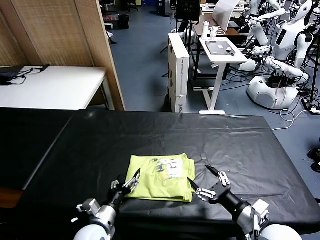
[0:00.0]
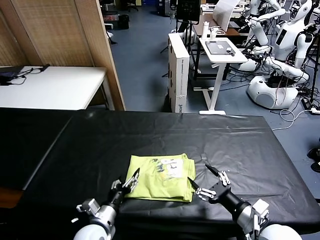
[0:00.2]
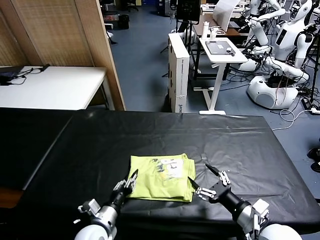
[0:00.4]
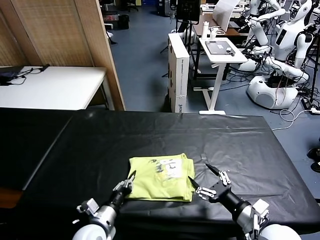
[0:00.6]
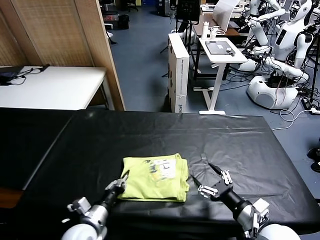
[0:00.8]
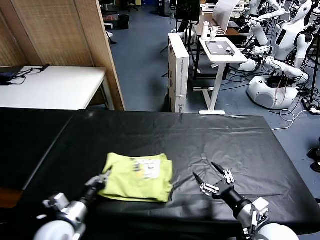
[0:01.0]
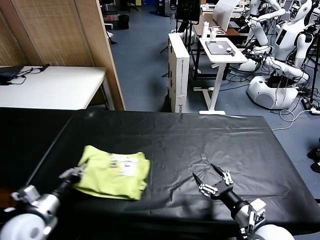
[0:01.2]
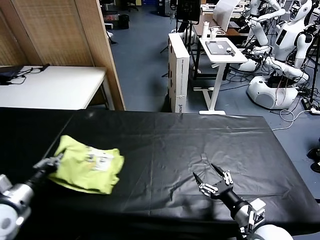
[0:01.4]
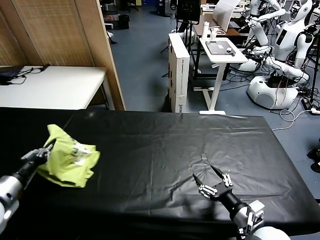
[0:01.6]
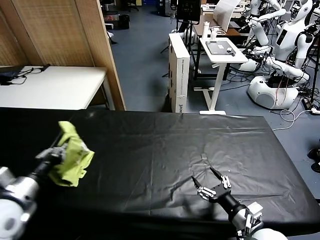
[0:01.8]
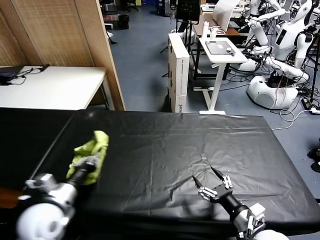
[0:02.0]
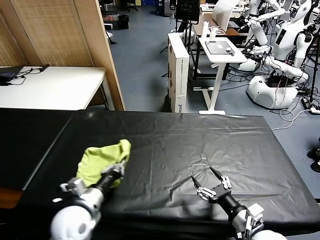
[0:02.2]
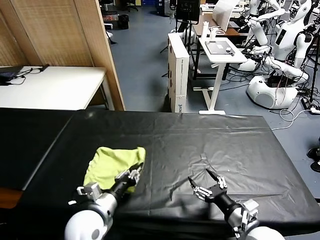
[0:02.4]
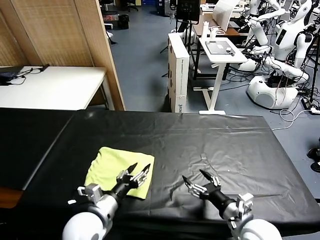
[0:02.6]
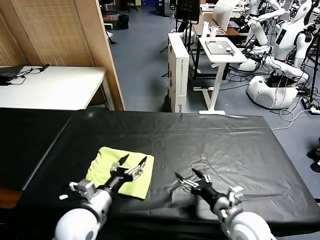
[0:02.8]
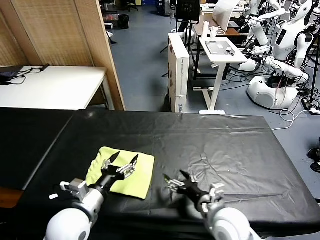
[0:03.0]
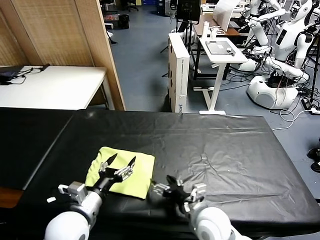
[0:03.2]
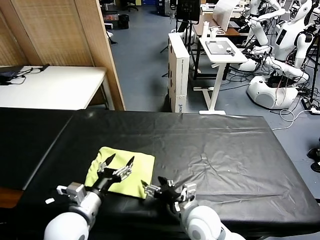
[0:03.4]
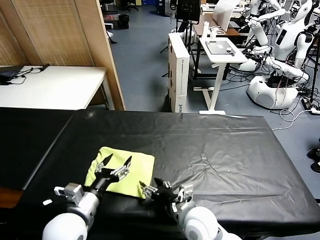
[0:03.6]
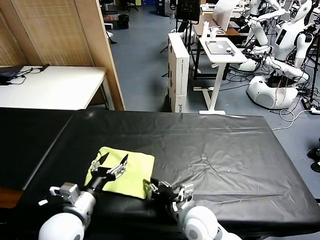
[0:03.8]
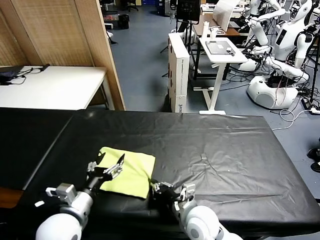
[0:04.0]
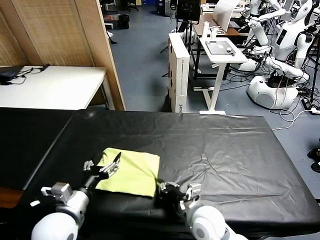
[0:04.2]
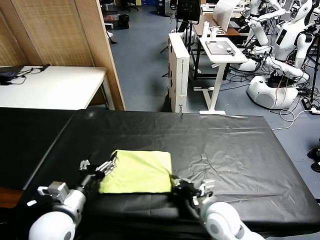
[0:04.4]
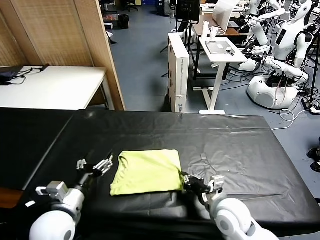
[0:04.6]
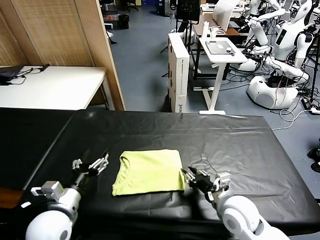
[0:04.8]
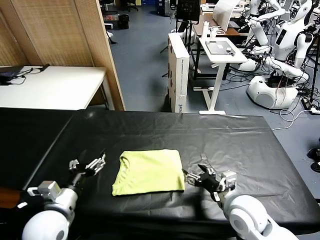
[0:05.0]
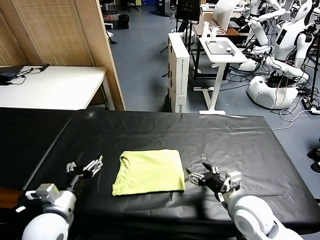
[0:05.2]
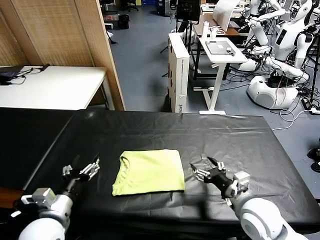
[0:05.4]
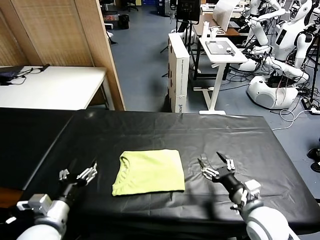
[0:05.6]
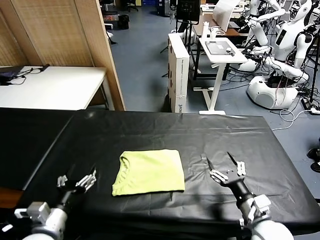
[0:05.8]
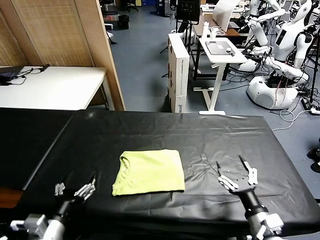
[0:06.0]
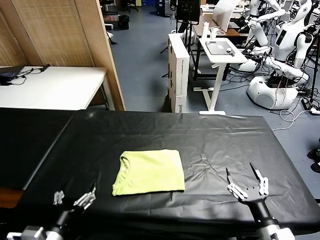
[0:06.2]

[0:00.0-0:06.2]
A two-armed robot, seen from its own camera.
Task of the whole recording: fold and organize the clothes.
Step, 0:00.0 to 0:02.4: Flip the folded clothes over with left gripper.
Step, 0:02.6 to 0:04.8: Drag the clothes to the center of the table.
0:00.0 to 0:01.6: The left gripper shifts roughly 30 cm to the left and upward, and closes up.
0:01.6 to 0:03.2: The left gripper moves to the right, about 20 cm, and opens. Meanwhile the right gripper goes roughly 15 cm to the left and forward.
0:03.2 to 0:04.6: The right gripper moves some 5 cm, and closes its fingers.
0:04.6 to 0:06.2: The right gripper is displaced backward and to the right by approximately 15 cm, and opens up. Meanwhile the left gripper is displaced backward by some 10 cm.

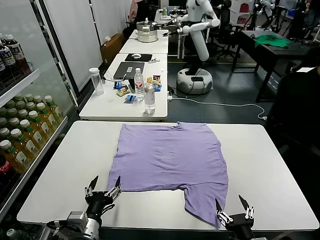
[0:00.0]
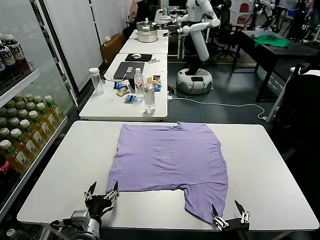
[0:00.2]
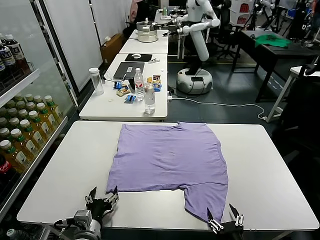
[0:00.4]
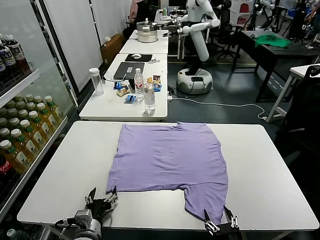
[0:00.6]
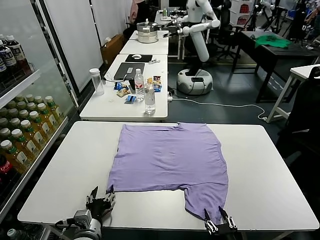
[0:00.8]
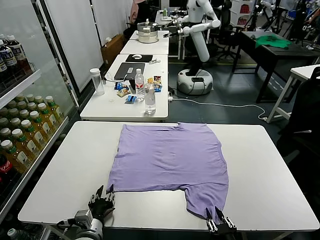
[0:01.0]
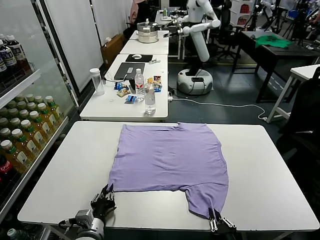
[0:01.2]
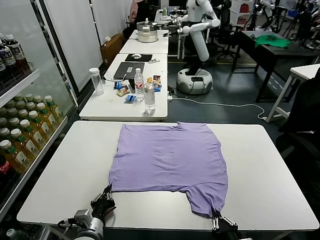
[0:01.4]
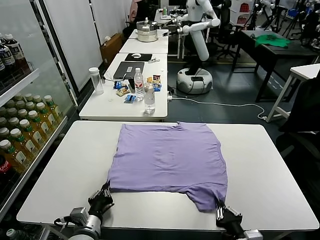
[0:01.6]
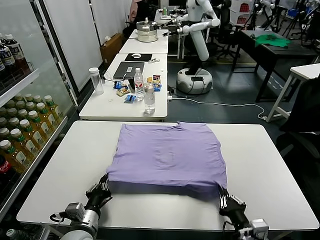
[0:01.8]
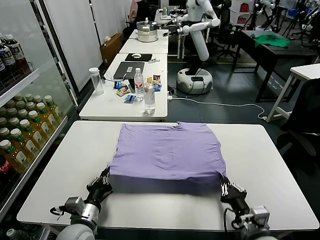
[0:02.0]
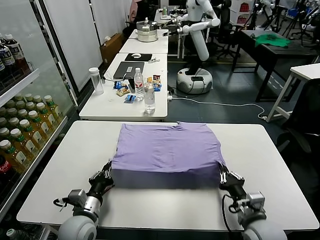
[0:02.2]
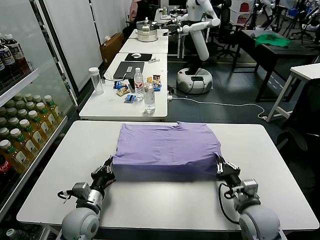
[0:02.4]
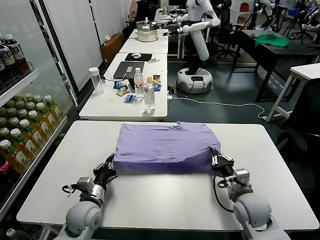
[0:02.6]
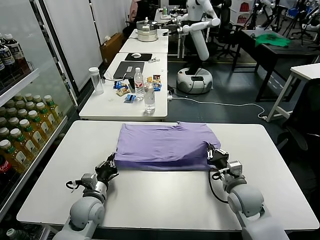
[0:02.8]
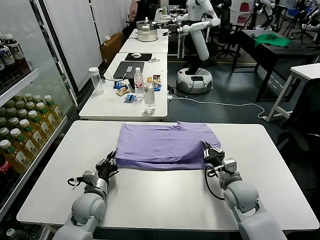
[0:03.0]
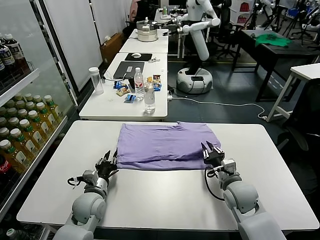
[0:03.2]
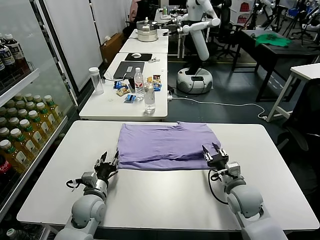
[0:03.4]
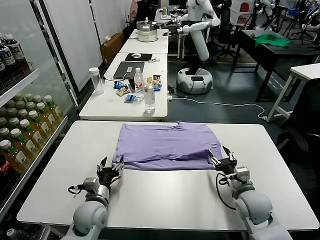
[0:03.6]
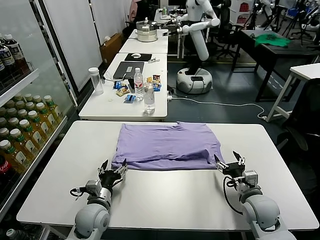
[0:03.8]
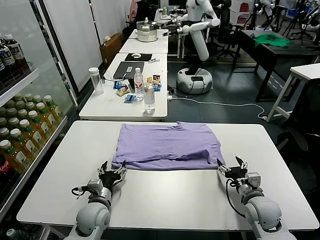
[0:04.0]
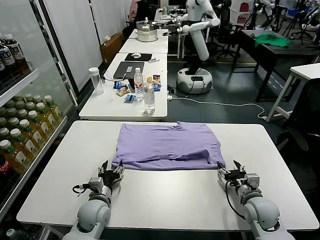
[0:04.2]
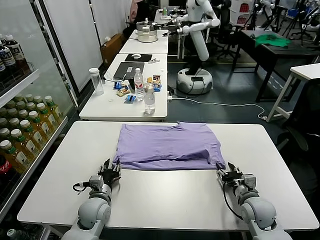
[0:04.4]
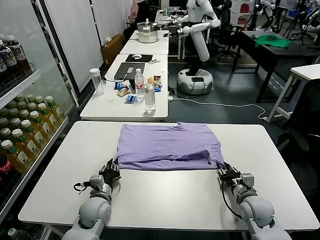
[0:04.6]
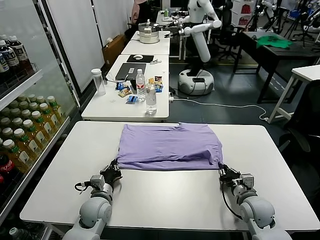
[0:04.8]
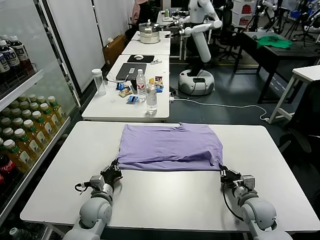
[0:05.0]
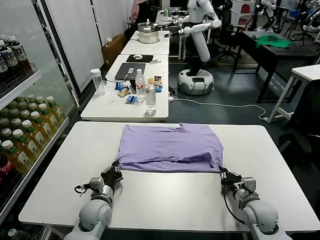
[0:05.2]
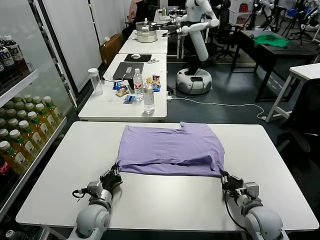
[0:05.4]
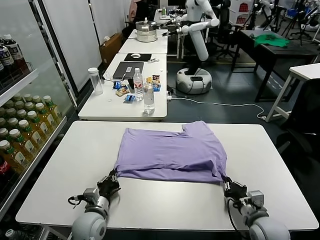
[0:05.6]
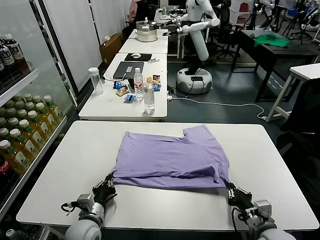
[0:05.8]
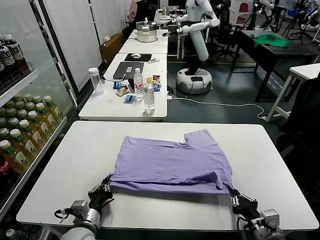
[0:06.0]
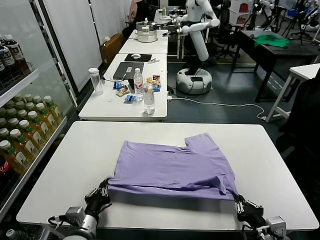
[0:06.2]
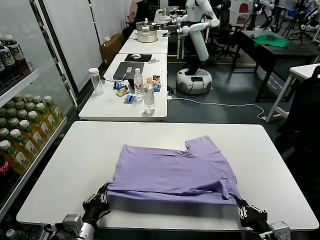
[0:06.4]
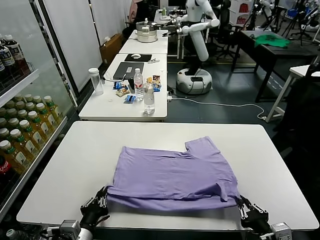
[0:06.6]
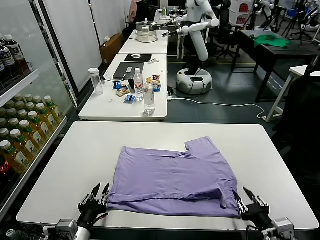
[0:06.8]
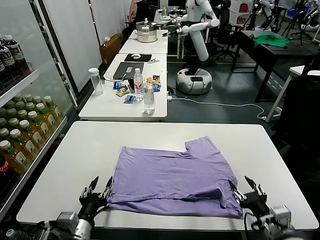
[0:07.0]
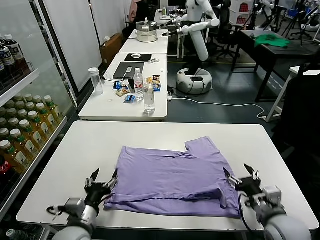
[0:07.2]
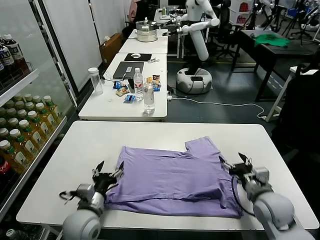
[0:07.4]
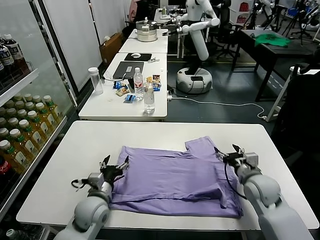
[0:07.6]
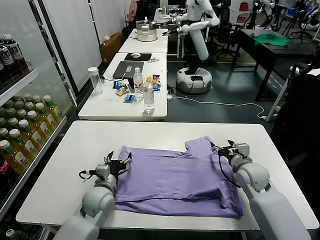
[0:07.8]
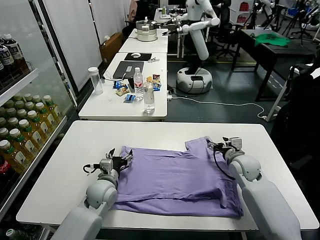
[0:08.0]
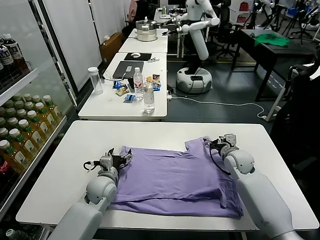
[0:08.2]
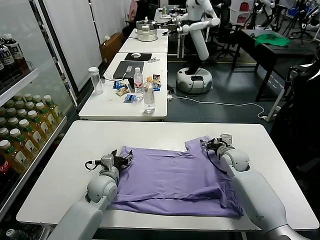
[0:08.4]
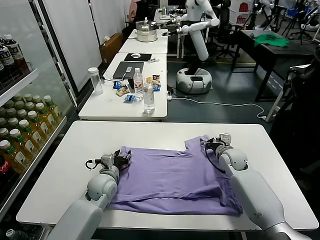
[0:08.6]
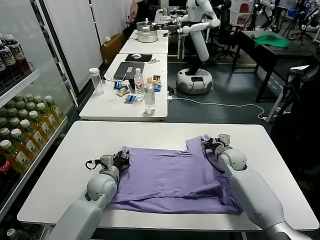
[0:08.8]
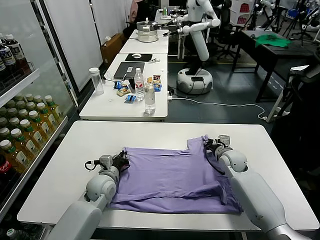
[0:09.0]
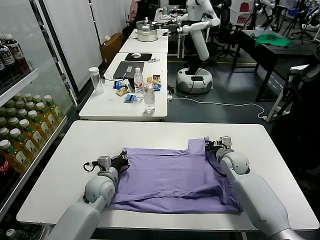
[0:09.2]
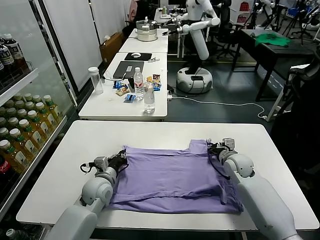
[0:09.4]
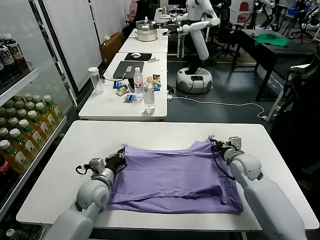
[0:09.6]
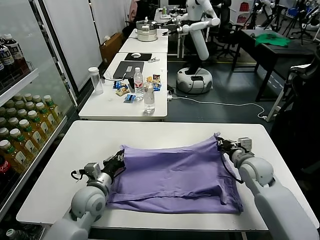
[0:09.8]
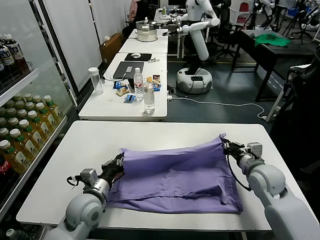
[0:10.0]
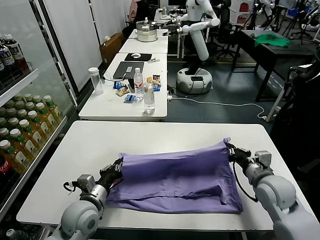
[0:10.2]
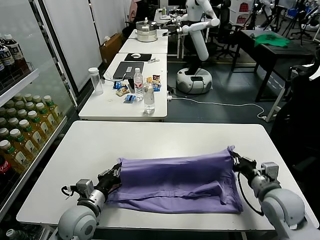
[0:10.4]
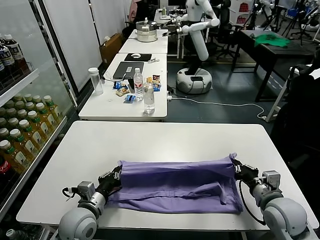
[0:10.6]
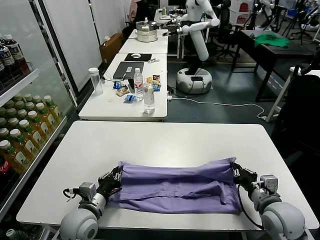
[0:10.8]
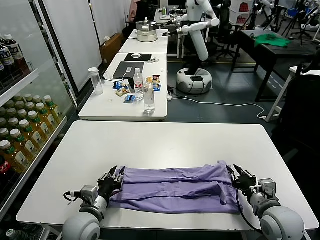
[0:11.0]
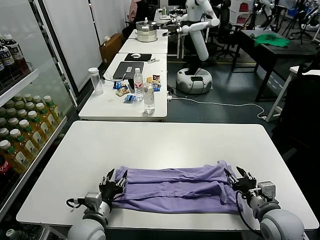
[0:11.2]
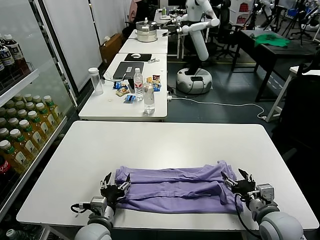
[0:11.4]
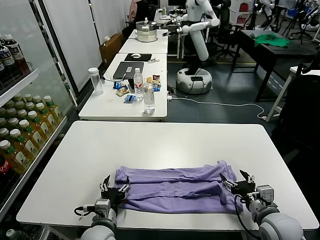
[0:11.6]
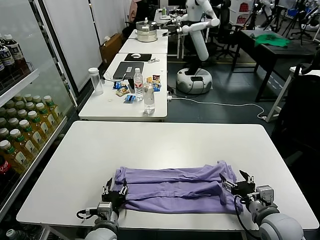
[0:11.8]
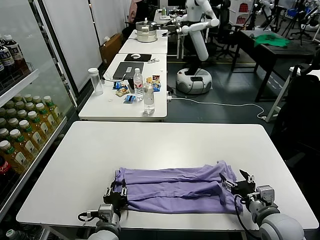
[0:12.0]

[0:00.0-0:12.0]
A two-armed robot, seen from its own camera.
Task of the whole recording: fold and organize the clothes.
Step, 0:00.0 to 0:01.2: use both grippers simultaneously to clamp the lower edge of the clothing fabric.
Step, 0:01.4 to 0:03.2: use both grippers to drag the lower edge of the fabric forward and fold it over the upper edge.
Step, 0:03.4 to 0:07.0: Drag the clothes downward with both gripper.
Step, 0:07.2 to 0:09.4: use both grippers simultaneously to clamp the upper edge of the clothing fabric.
Step, 0:09.6 to 0:11.0: use both grippers to drag the upper edge of the fabric backward and fold it over the lower edge.
0:01.6 to 0:03.0: The right gripper heads forward, covering about 20 cm, while the left gripper travels forward by about 15 cm.
0:03.0 to 0:04.4: The left gripper opens and closes again. Meanwhile the right gripper moves to the right, roughly 5 cm, and opens and closes again.
0:04.4 to 0:06.0: The grippers both shift backward by some 15 cm. The right gripper closes its fingers, while the left gripper closes.
0:06.0 to 0:07.6: The left gripper shifts approximately 10 cm forward, and opens up. The right gripper travels forward by some 20 cm, and opens its fingers.
0:07.6 to 0:09.0: The two grippers go approximately 10 cm forward. The left gripper closes up; the right gripper closes up.
0:09.0 to 0:10.4: The left gripper moves backward, about 15 cm, while the right gripper heads backward, covering about 20 cm.
0:10.4 to 0:12.0: The right gripper shifts by some 5 cm, and opens up. The left gripper heads downward and to the right, covering roughly 10 cm, and opens its fingers.

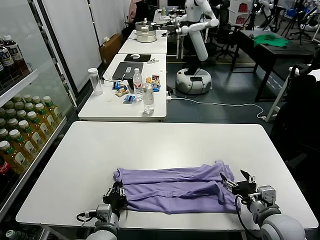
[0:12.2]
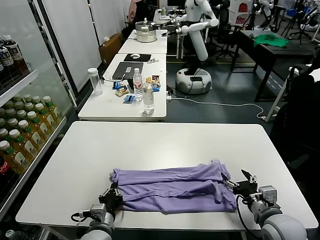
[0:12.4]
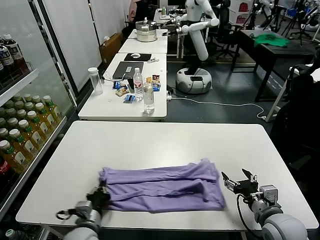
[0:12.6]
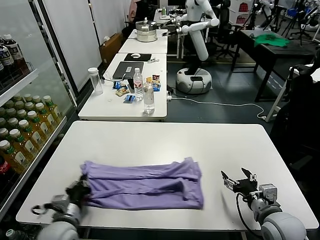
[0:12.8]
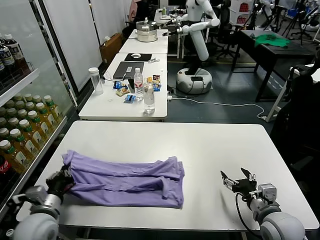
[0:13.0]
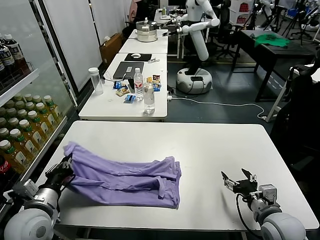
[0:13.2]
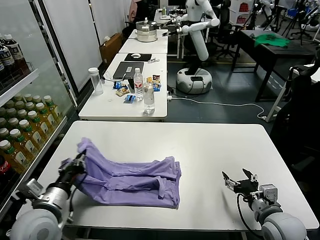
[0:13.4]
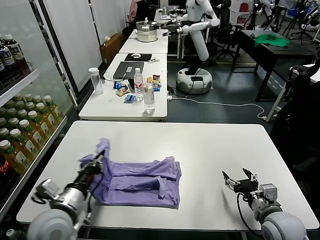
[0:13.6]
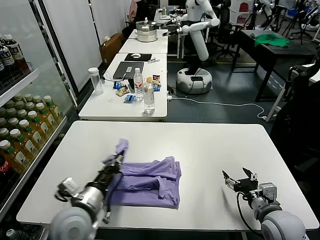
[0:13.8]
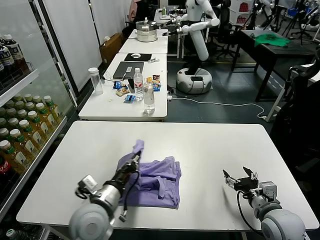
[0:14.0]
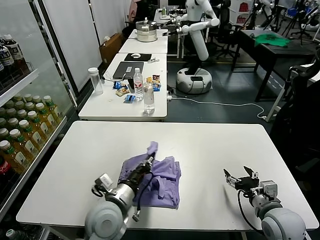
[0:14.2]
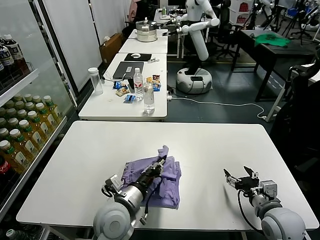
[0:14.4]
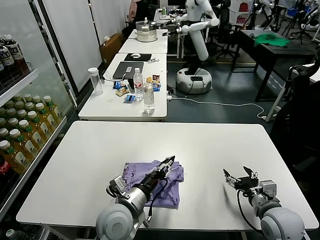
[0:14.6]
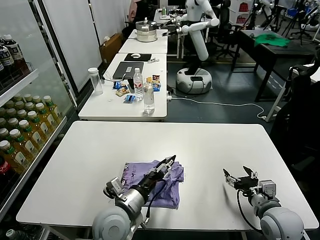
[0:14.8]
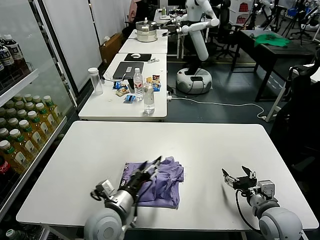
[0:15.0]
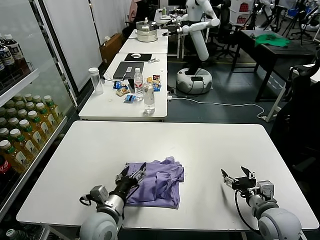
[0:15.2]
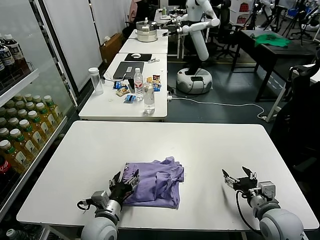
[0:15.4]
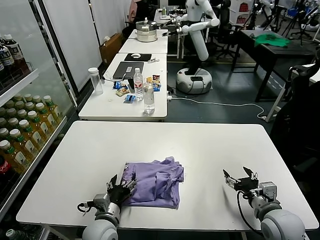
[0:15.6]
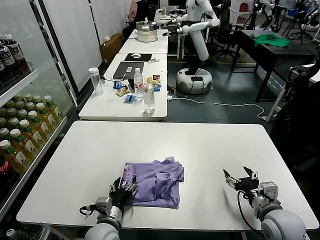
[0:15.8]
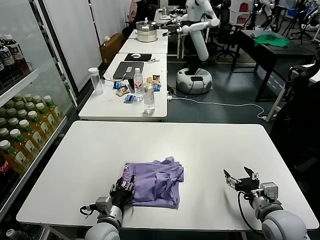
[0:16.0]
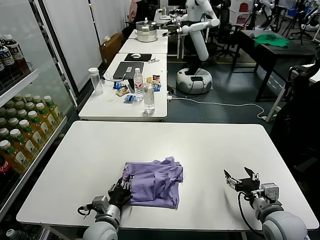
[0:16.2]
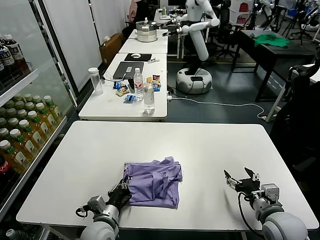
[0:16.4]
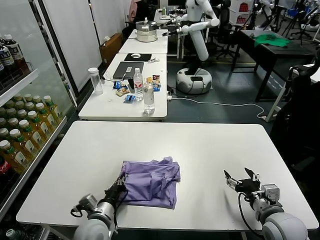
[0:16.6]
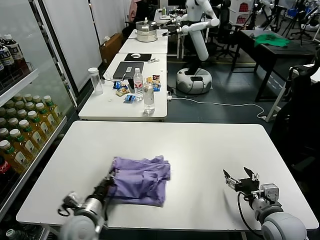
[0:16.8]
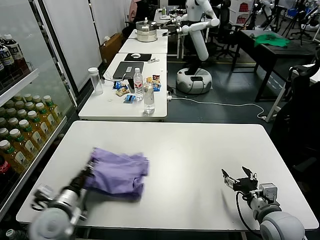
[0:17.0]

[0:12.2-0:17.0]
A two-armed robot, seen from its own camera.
Task of the whole recording: fold and organize the clothes.
Step, 0:12.6 to 0:14.8: use the left gripper to drag the left edge of the fabric to the left and folds it over the right edge.
0:12.2 to 0:13.8: The left gripper heads upward, covering some 15 cm, and goes to the left and returns, about 15 cm each way.
0:13.8 to 0:15.4: The left gripper shifts about 10 cm downward, and opens its fingers.
0:15.4 to 0:17.0: The left gripper goes approximately 10 cm to the left, and closes.
